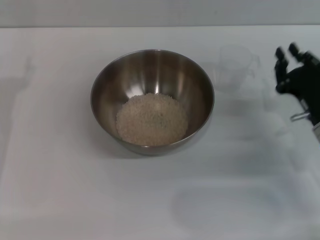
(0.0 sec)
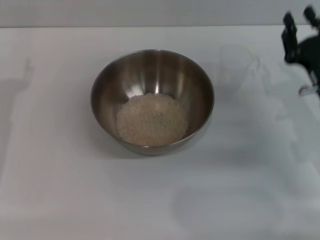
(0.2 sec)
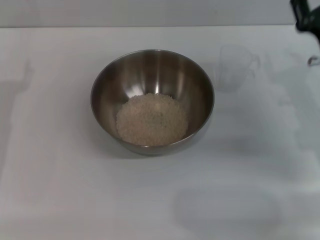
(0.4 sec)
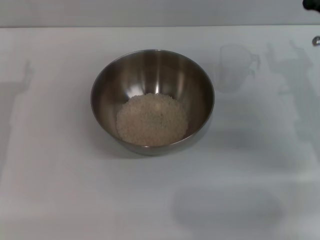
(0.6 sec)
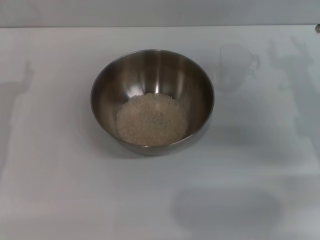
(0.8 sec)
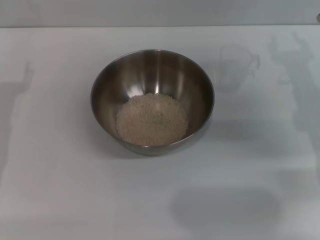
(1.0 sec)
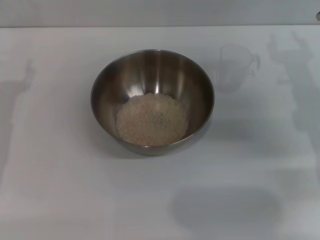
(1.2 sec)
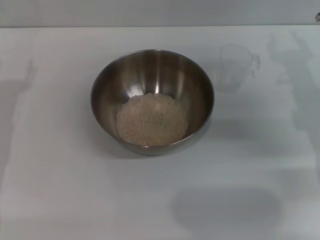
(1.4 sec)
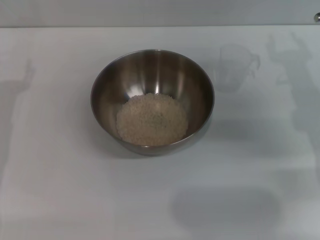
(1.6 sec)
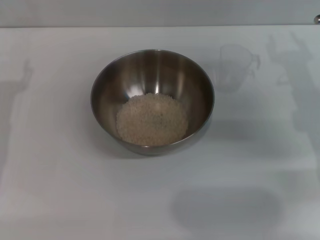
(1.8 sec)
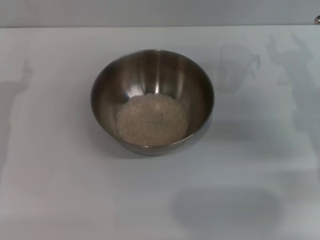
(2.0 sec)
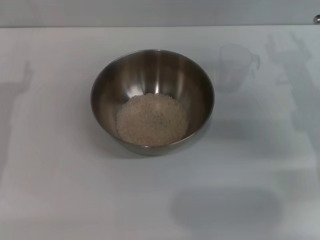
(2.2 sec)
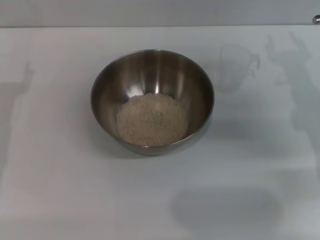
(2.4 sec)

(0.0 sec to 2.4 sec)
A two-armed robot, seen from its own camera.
Task of the whole recording: Place the bowl in the middle of the table with one hand and pour the rice from the grain cup into it with the other hand.
0.0 sec - 1.2 sec: The right gripper heads upward and forward, covering roughly 10 cm, and opens.
1.2 sec - 2.4 sec: Neither gripper changes place.

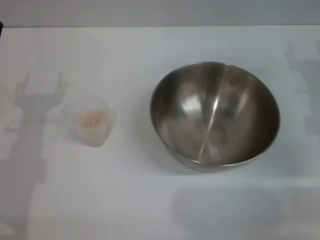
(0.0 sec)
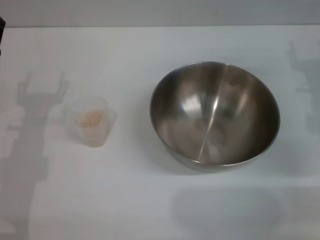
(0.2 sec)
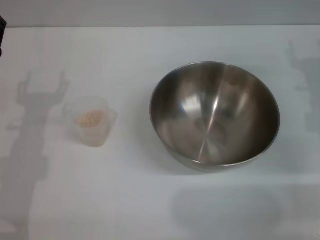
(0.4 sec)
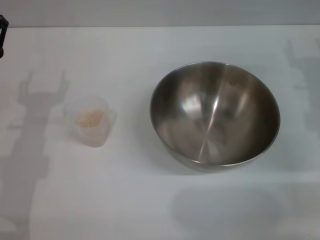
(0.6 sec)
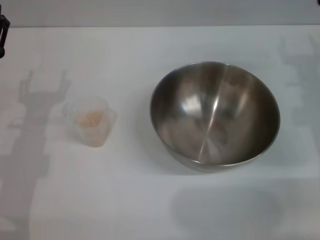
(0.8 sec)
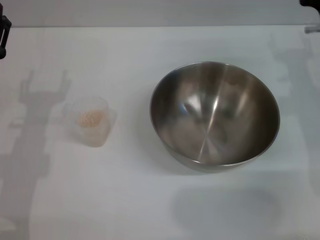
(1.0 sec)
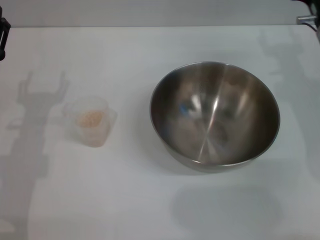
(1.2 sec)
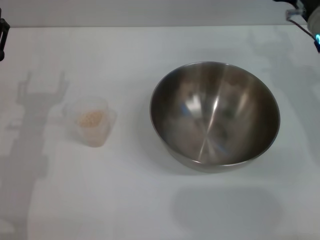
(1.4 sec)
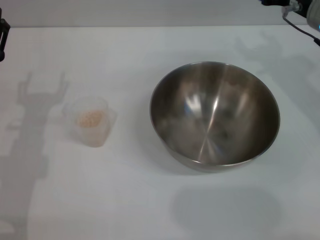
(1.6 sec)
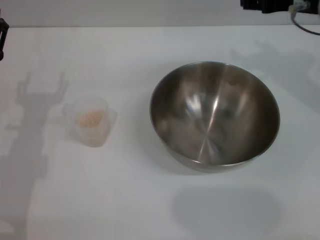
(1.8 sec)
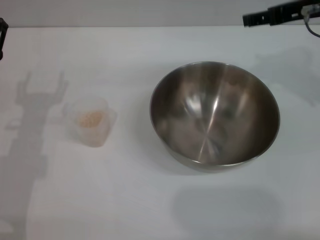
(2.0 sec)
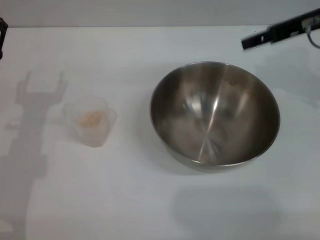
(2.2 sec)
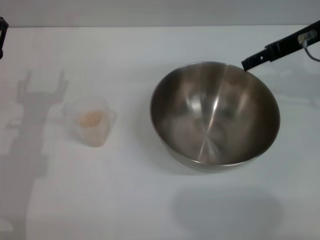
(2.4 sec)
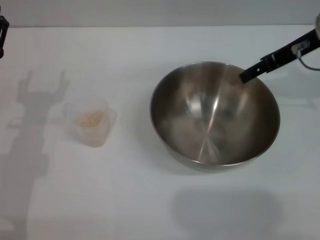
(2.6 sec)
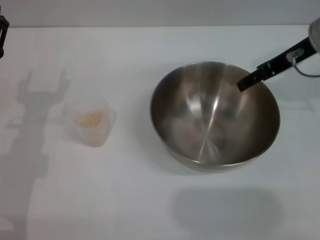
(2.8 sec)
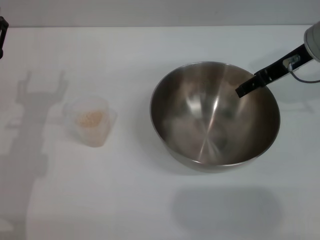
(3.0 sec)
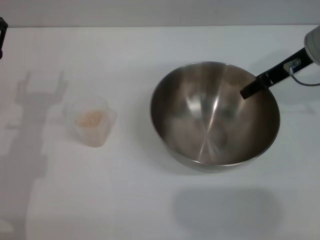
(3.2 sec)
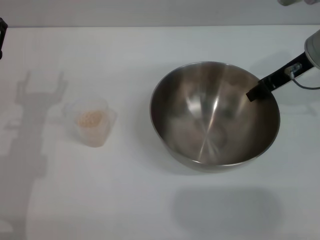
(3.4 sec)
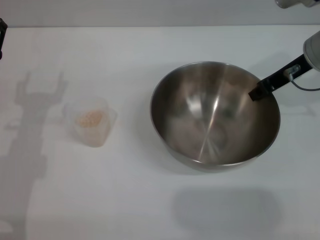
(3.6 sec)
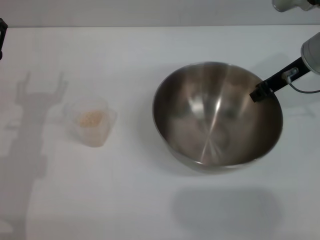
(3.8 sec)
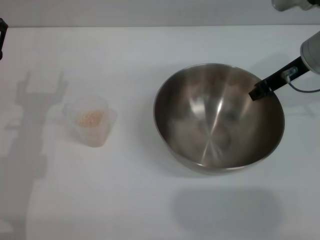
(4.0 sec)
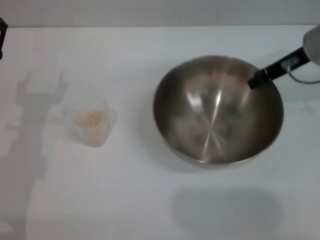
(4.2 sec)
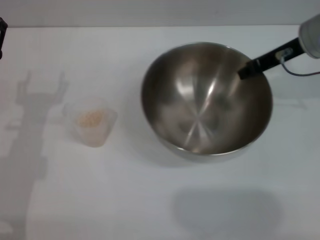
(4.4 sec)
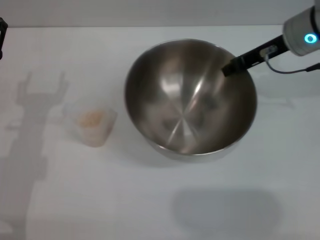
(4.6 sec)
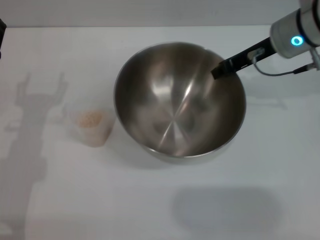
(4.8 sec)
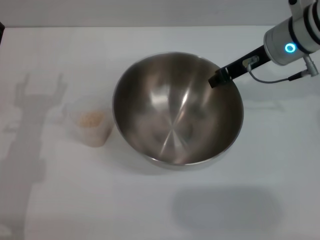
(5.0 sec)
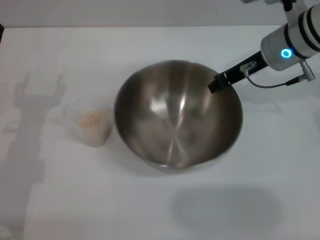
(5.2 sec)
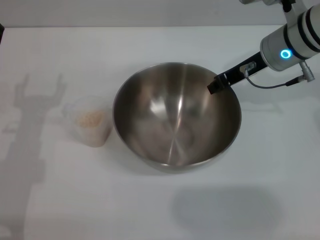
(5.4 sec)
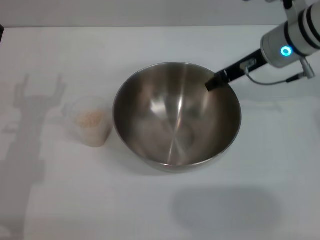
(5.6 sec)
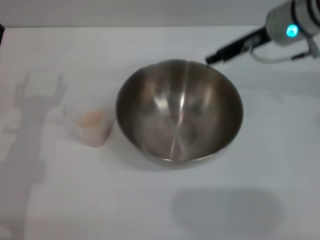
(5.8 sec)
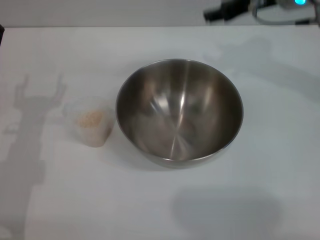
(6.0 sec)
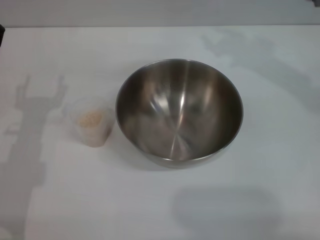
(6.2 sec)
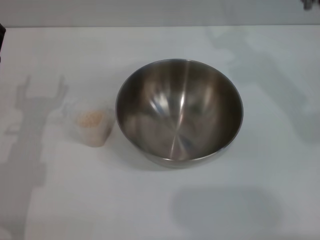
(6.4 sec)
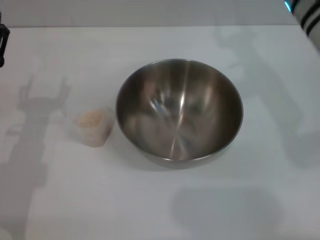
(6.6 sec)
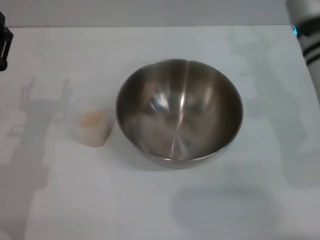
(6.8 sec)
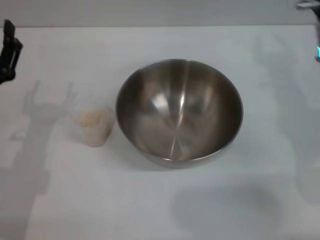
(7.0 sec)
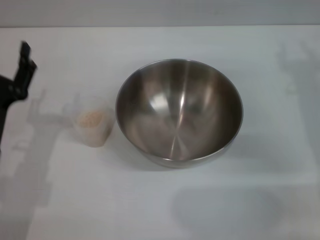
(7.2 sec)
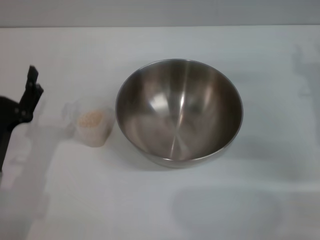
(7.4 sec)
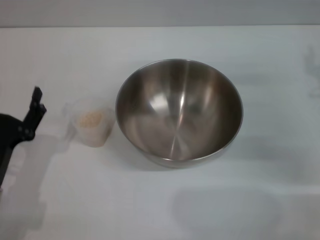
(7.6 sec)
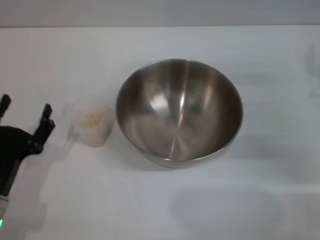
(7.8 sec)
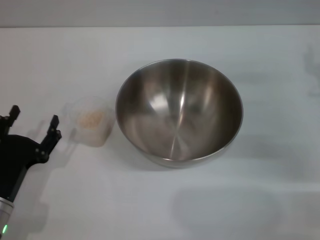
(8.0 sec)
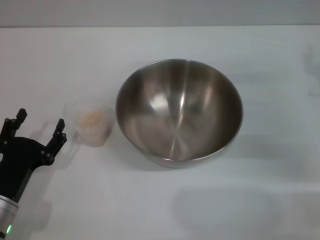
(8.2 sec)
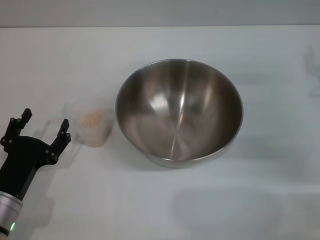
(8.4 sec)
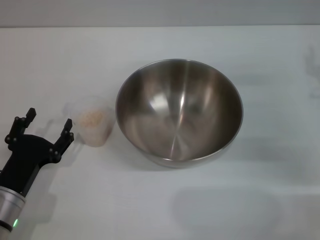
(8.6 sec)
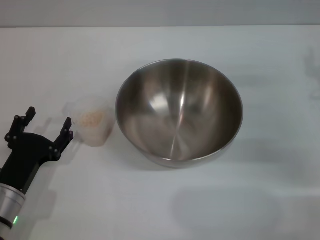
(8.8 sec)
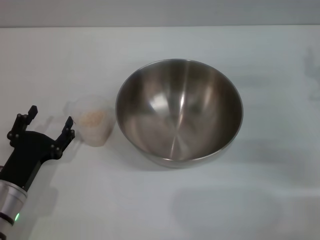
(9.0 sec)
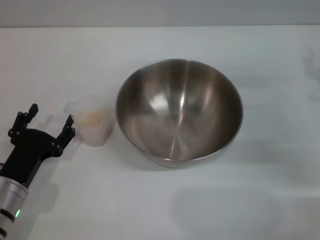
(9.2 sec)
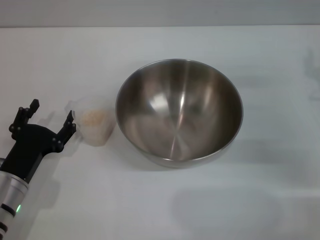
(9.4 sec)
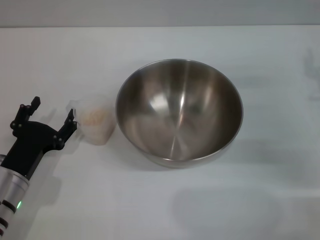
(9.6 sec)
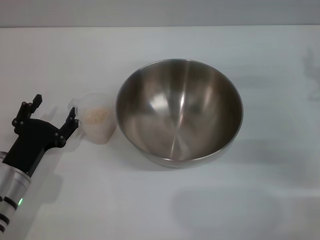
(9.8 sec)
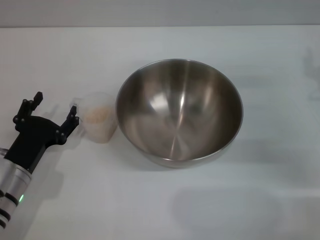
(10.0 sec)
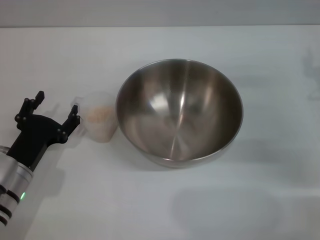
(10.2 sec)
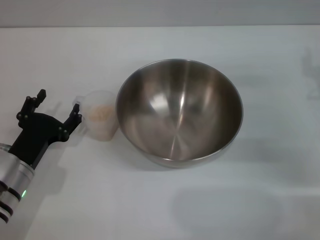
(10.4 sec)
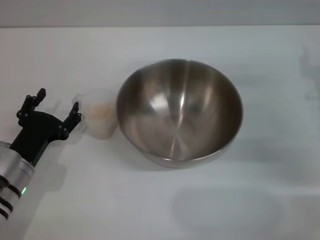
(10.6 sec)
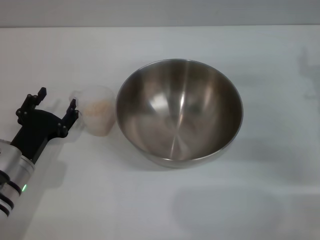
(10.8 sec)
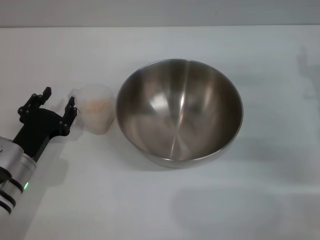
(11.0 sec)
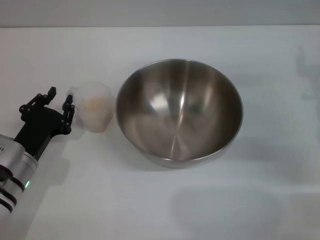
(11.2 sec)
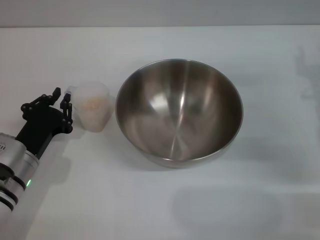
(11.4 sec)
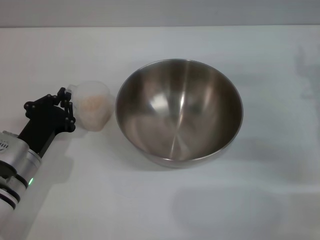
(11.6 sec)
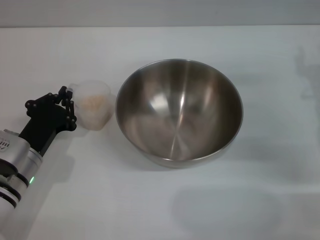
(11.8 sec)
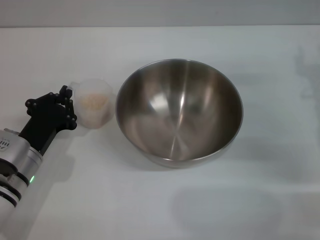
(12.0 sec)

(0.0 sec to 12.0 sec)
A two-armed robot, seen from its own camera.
Task of the whole recording: Place the bowl in the middle of the table with one hand and pour the rice from the grain cup into it with the other hand.
Step, 0.0 sec - 4.4 sec: Pick up the bowl with the right gripper.
Step, 4.6 sec - 5.8 sec: Place the bowl in the center of view with the right gripper.
0.0 sec - 1.6 sec: The right gripper shifts approximately 10 cm upward, forward and to the left.
3.0 sec - 4.4 sec: The right gripper closes.
4.4 sec - 6.0 sec: The right gripper travels upward by some 5 cm, and opens.
6.0 sec - 7.6 sec: The left gripper travels backward by approximately 5 cm. The right gripper goes some 20 cm downward, to the right and backward.
7.6 sec - 10.4 sec: The grippers make only small movements.
10.4 sec - 12.0 sec: The left gripper closes up.

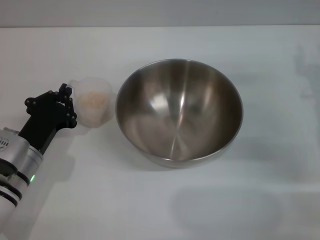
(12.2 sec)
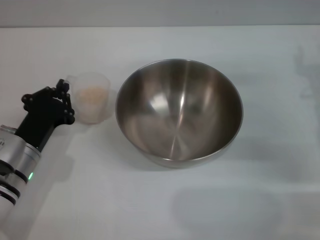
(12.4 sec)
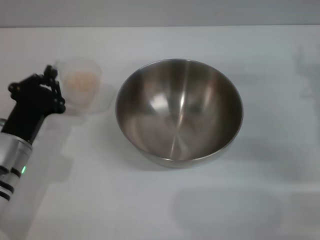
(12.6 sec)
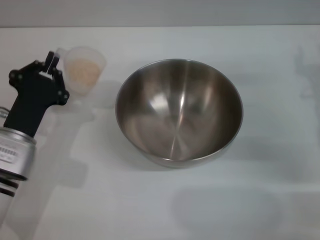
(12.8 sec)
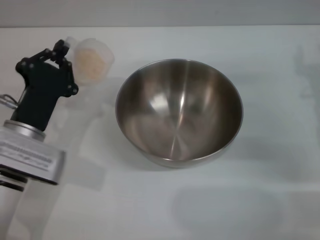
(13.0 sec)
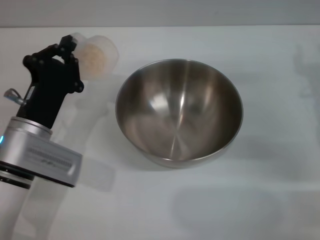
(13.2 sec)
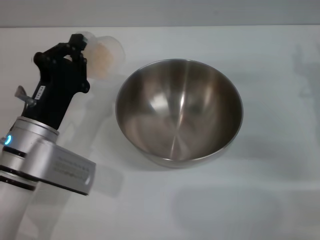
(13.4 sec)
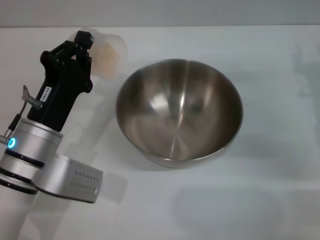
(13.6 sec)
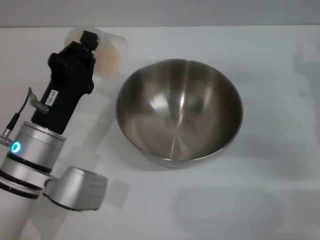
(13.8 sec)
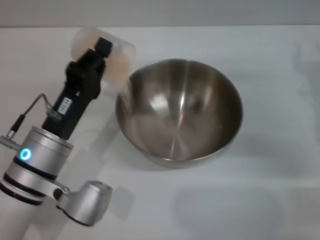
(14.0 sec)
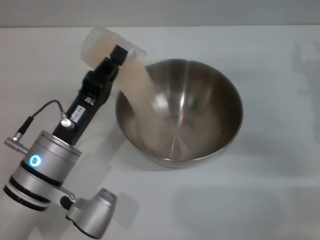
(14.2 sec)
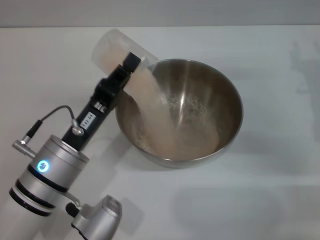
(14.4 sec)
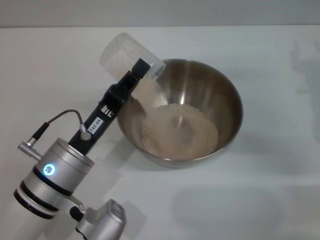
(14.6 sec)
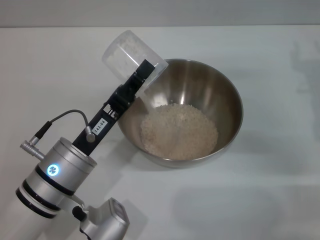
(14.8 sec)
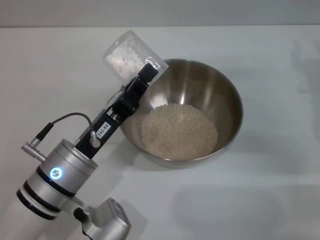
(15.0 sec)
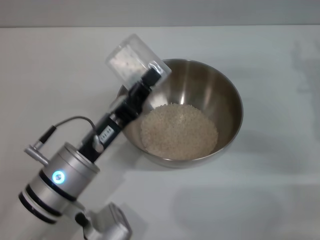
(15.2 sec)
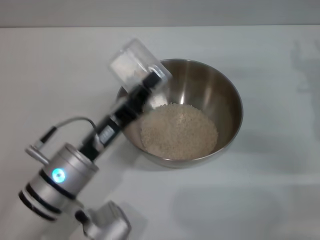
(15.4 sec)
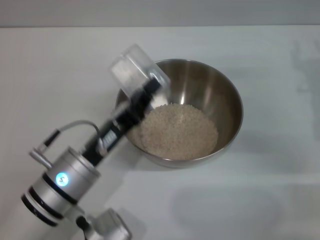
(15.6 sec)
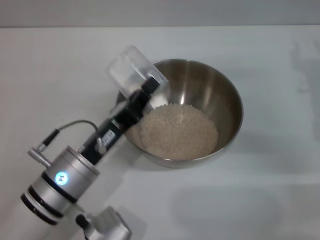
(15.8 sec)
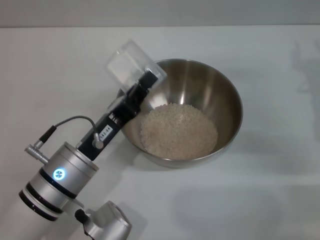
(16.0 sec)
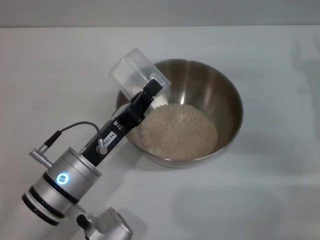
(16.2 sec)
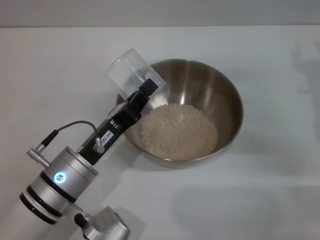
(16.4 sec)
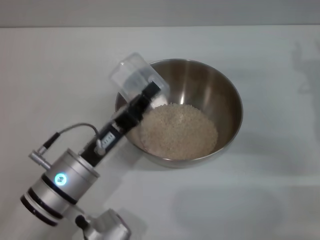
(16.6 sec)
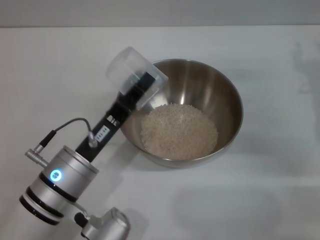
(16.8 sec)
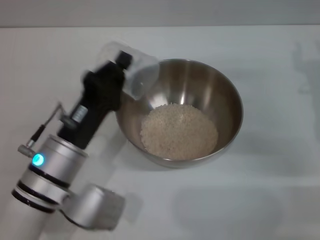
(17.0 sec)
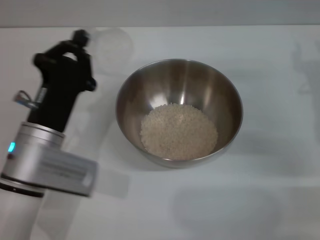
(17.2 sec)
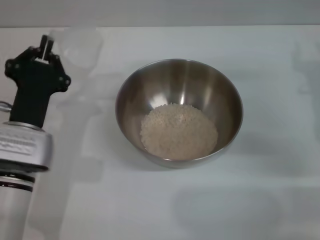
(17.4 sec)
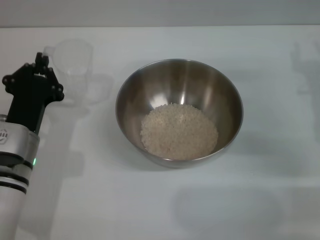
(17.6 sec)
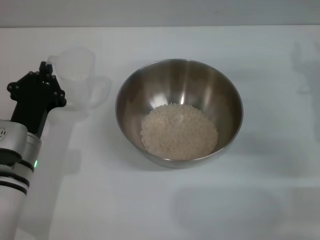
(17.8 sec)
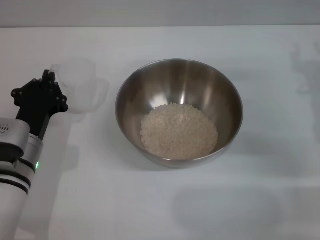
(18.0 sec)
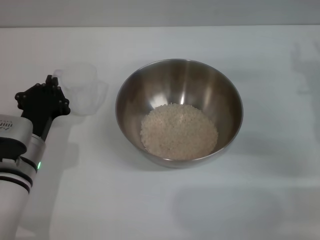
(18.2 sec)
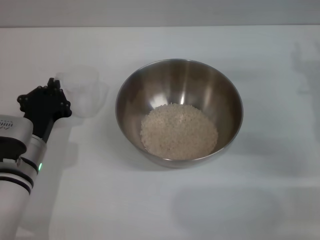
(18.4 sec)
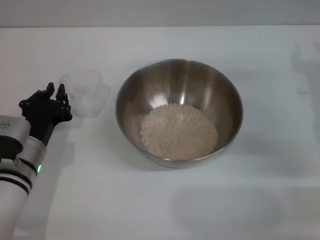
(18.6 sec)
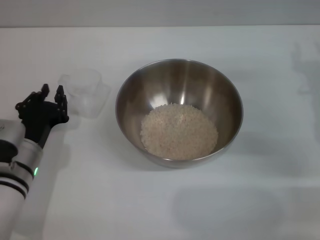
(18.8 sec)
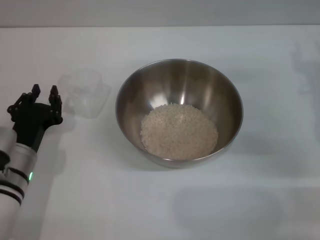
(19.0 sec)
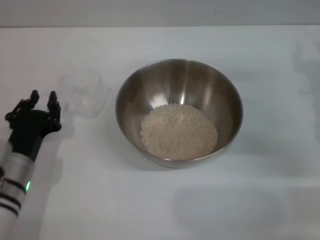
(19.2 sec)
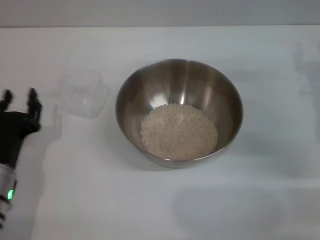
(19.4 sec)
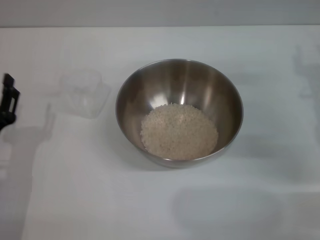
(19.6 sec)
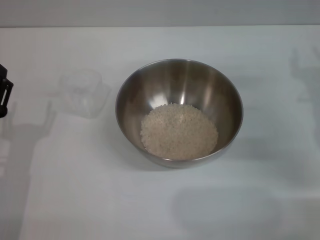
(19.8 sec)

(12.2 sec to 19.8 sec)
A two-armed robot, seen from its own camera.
Task of the whole recording: Place the bowl in the middle of the table with one hand and pour the rice from the grain cup into it with the other hand.
Step, 13.0 sec - 17.2 sec: Pour the rice from the cup into the bowl with the left gripper.
Step, 17.4 sec - 19.2 sec: Place the cup on the table with the left gripper.
12.2 sec - 13.8 sec: The left gripper shifts approximately 5 cm upward and to the right.
15.2 sec - 16.8 sec: The grippers make only small movements.
16.8 sec - 18.2 sec: The left gripper moves to the left, approximately 5 cm.
18.2 sec - 19.8 sec: The left gripper is displaced backward and to the left by some 10 cm, and opens.
